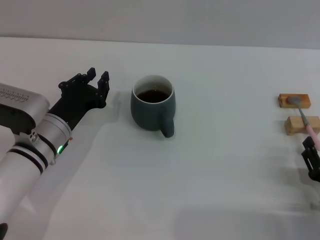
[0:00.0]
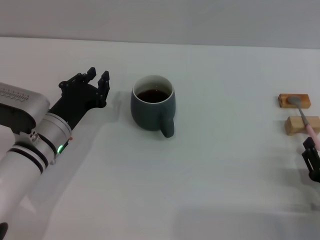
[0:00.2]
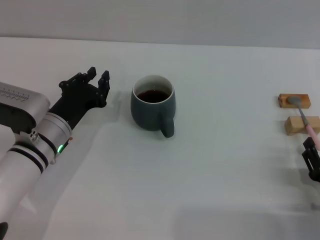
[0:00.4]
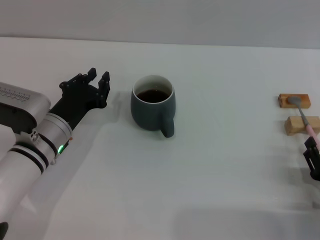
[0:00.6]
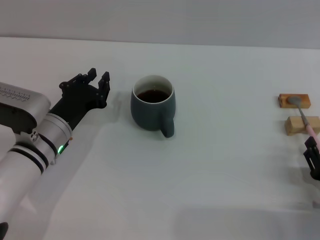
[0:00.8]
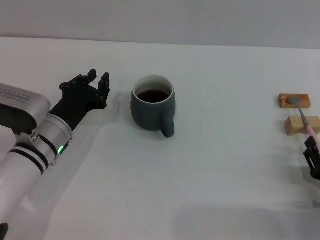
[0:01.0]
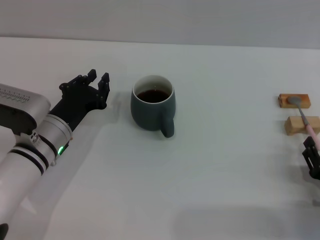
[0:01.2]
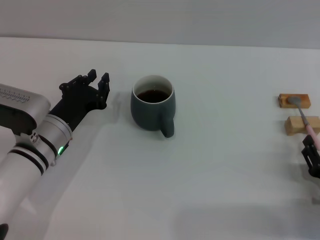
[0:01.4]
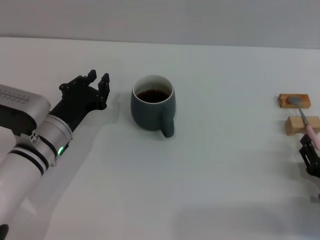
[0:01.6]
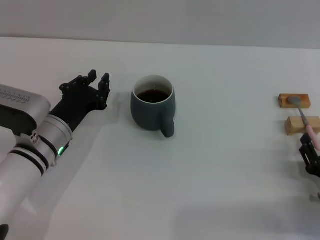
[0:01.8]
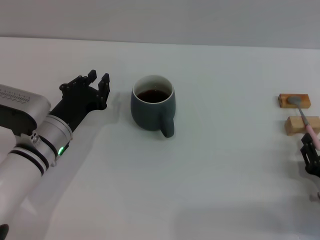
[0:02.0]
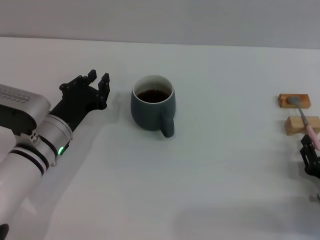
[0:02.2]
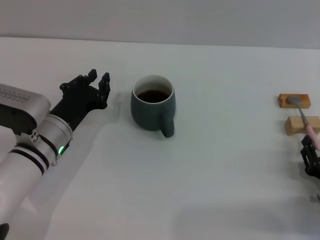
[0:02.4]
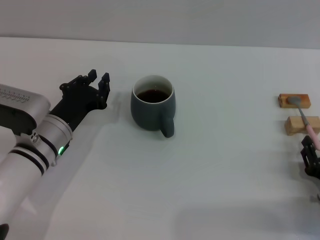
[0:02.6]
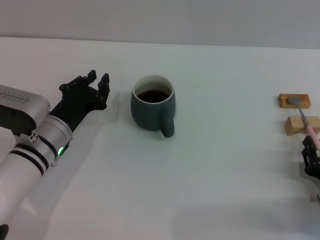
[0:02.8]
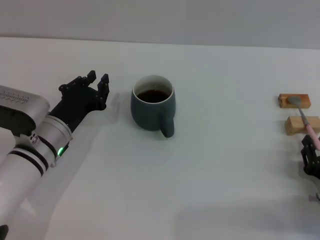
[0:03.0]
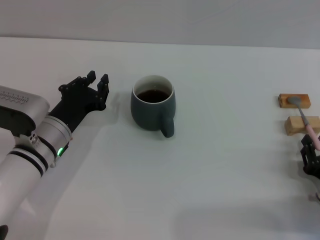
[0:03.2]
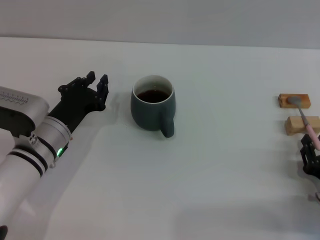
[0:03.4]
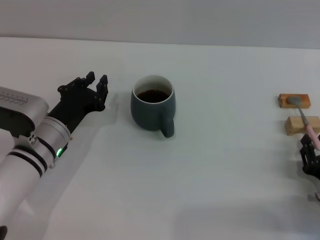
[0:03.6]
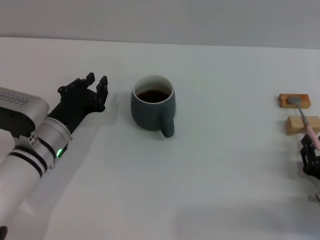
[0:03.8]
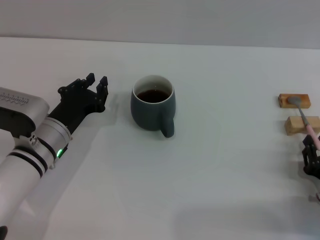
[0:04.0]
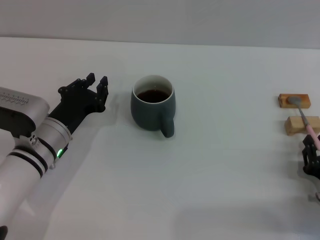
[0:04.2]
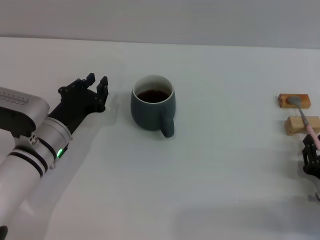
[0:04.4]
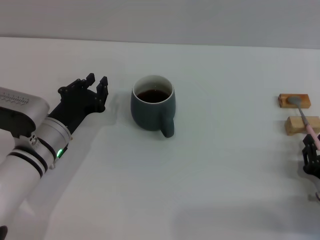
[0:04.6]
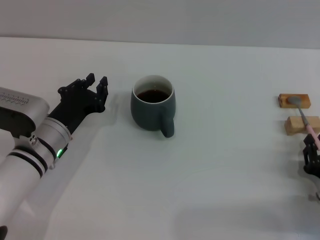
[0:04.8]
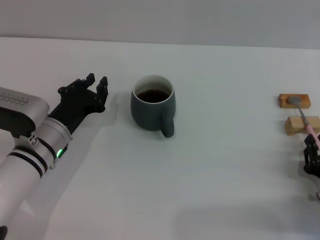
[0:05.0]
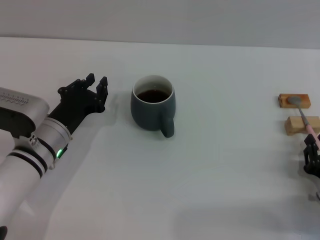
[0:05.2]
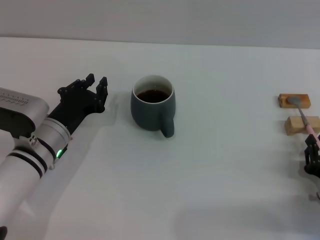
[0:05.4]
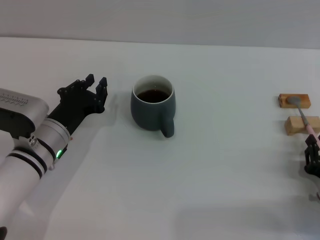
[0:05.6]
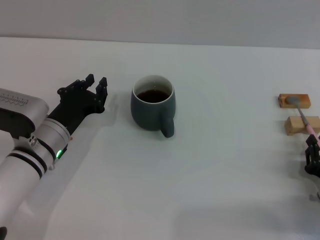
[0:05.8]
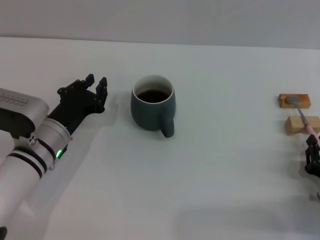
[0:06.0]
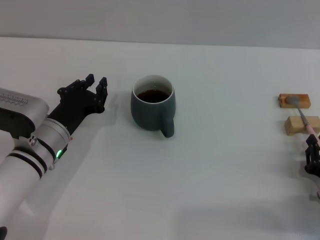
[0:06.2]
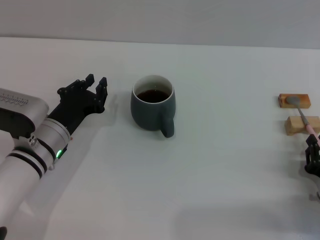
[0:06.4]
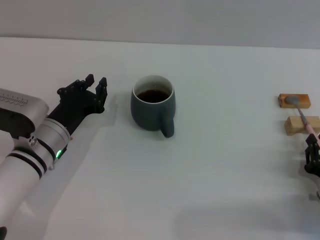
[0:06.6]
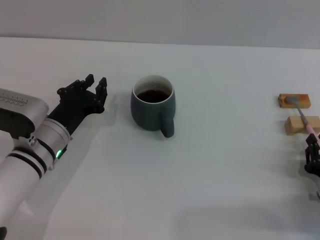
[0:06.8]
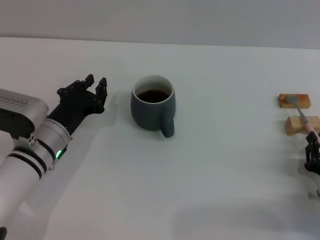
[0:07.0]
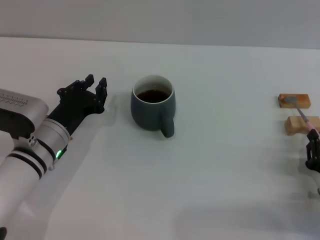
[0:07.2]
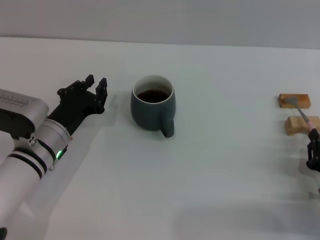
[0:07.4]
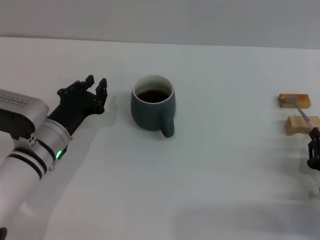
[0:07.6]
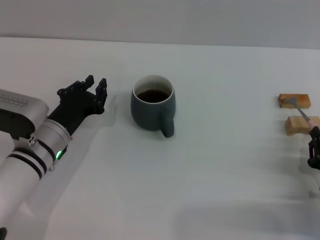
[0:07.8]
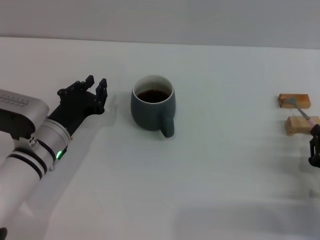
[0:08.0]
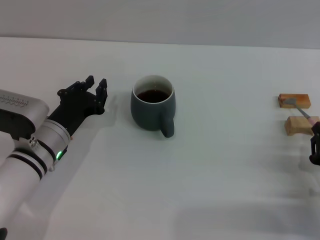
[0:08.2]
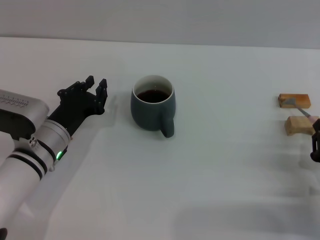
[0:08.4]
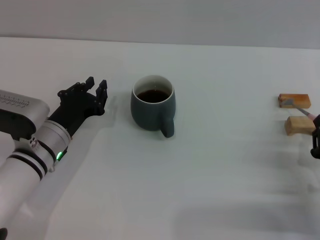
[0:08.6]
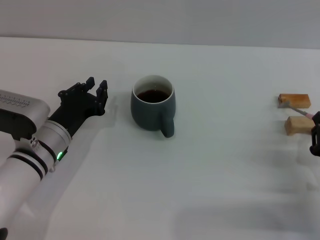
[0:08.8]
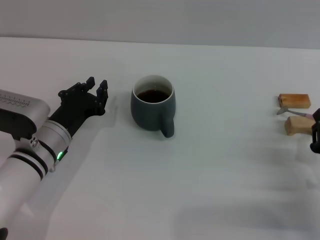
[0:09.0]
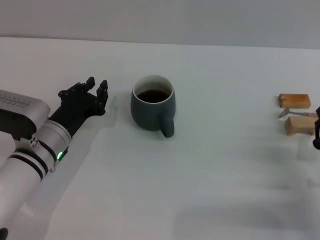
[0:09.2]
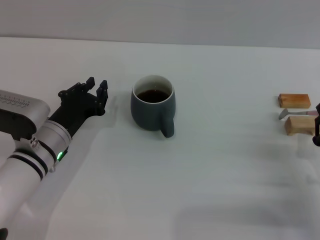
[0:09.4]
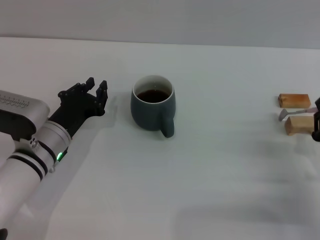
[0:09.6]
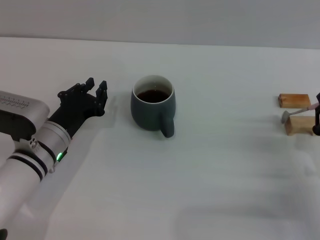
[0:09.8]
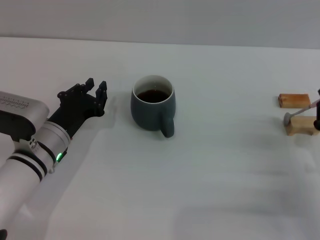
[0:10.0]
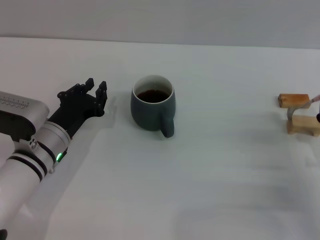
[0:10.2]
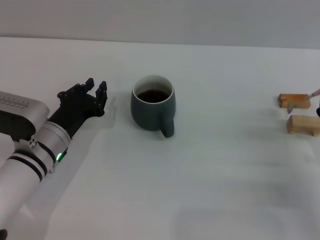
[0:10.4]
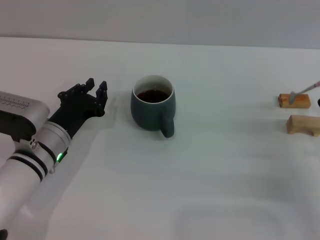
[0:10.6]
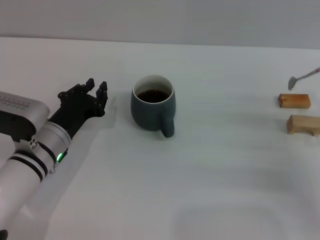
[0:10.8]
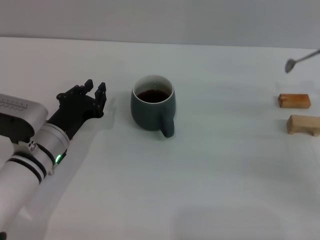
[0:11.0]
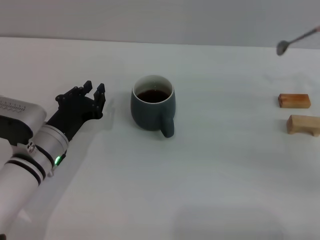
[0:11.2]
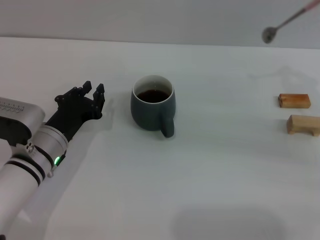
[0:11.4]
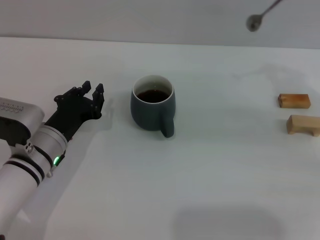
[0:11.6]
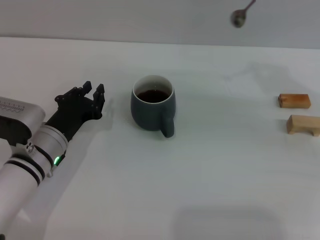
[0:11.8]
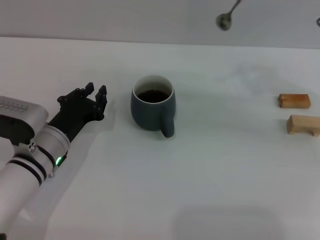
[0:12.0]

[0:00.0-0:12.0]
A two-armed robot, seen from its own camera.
Task of the whole recording: Move the grey cup to the center, lift the pink spoon, stir it three times in the cup, and put the spoon into the cup.
0:00.0 to 0:01.6: The grippers move only a little.
0:03.0 to 0:07.6: Both grippers stay put.
0:07.6 to 0:09.0: The grippers stay close to where they were, moving slightly.
0:09.0 to 0:10.4: There are only small adjustments of the grippers.
0:10.4 to 0:12.0: The right gripper heads upward and forward, covering approximately 20 cm.

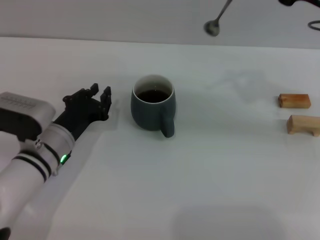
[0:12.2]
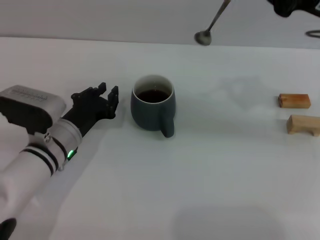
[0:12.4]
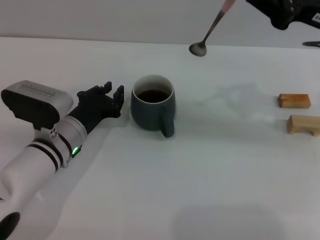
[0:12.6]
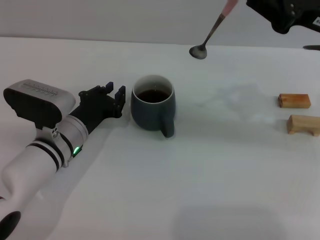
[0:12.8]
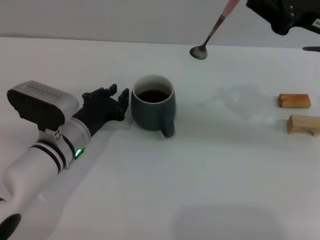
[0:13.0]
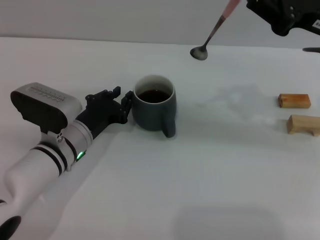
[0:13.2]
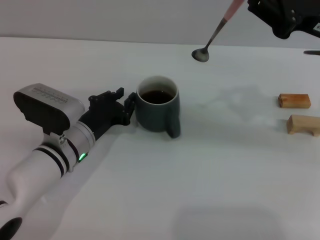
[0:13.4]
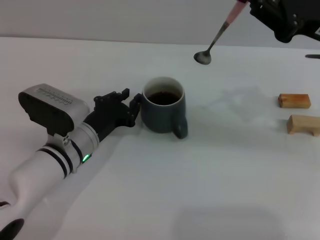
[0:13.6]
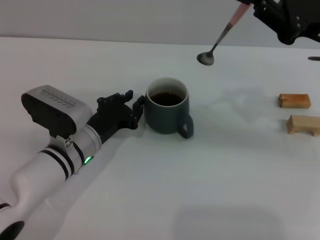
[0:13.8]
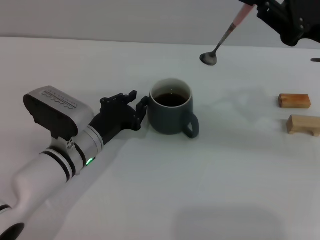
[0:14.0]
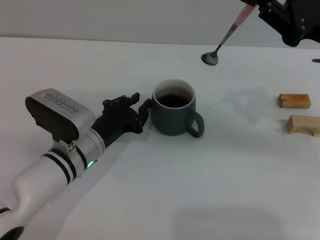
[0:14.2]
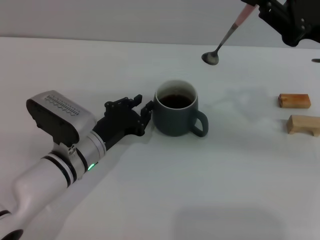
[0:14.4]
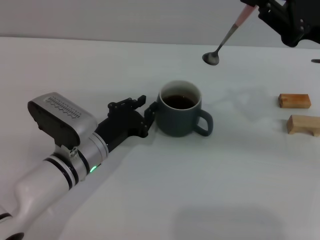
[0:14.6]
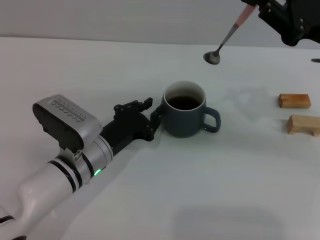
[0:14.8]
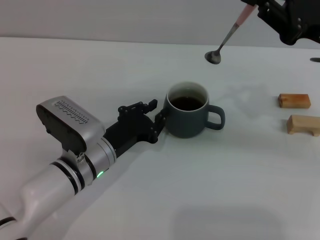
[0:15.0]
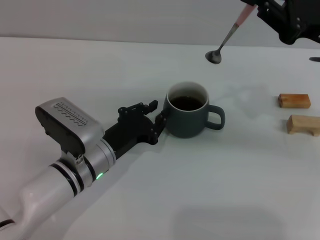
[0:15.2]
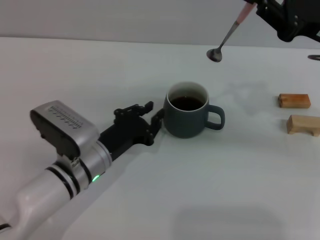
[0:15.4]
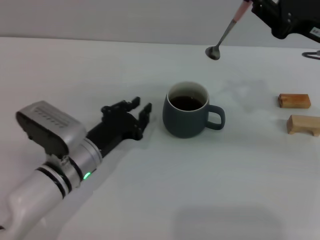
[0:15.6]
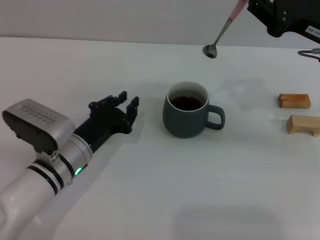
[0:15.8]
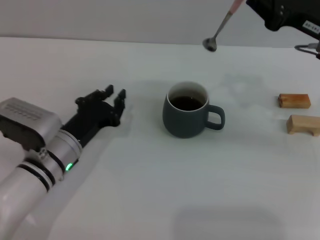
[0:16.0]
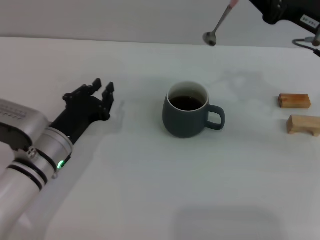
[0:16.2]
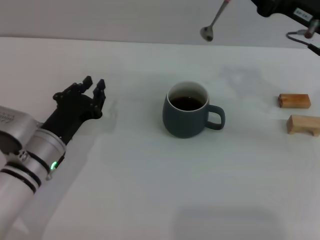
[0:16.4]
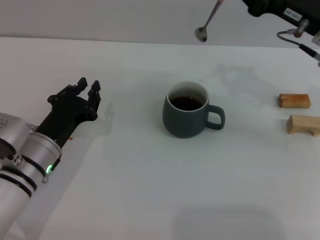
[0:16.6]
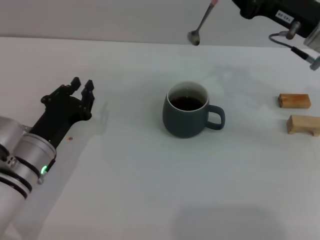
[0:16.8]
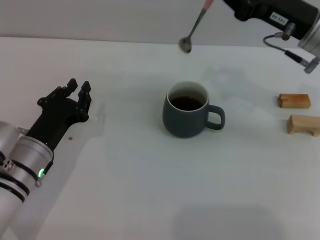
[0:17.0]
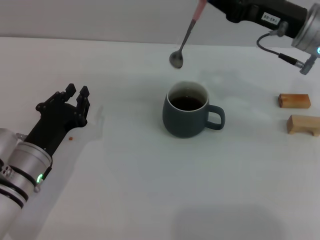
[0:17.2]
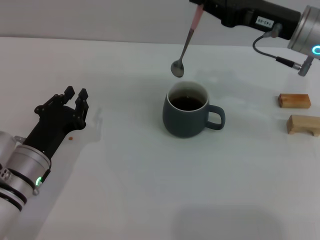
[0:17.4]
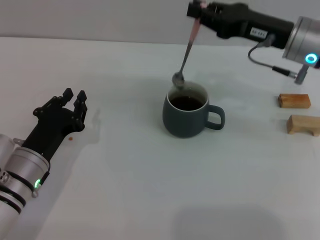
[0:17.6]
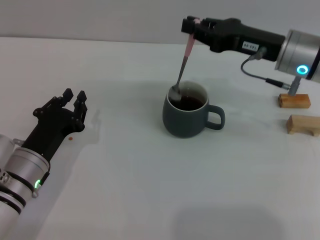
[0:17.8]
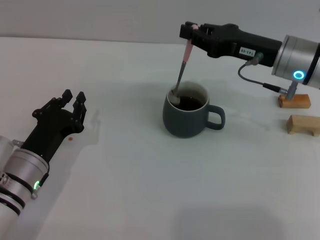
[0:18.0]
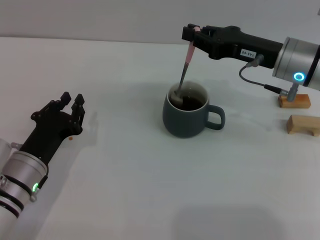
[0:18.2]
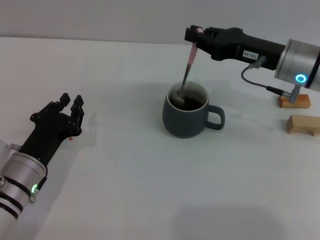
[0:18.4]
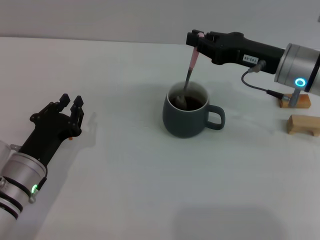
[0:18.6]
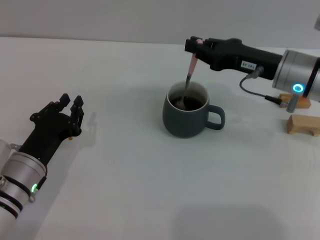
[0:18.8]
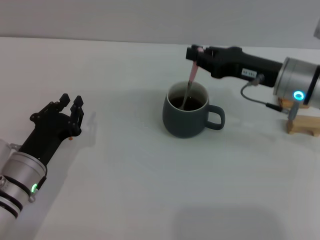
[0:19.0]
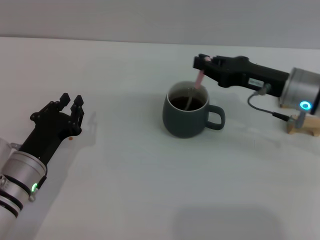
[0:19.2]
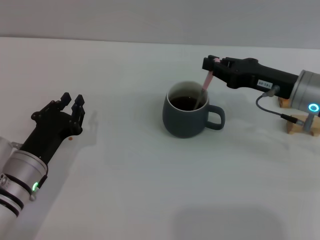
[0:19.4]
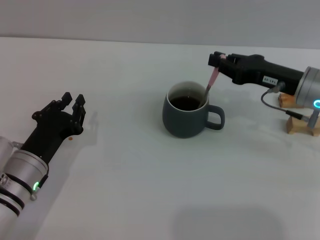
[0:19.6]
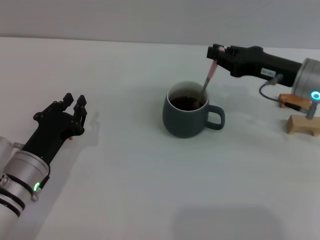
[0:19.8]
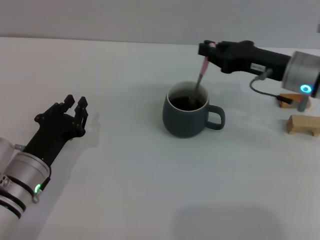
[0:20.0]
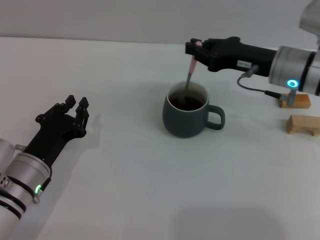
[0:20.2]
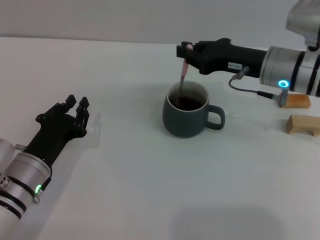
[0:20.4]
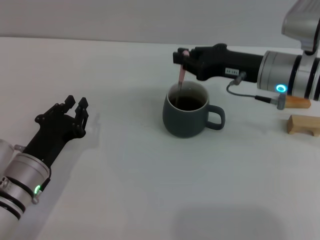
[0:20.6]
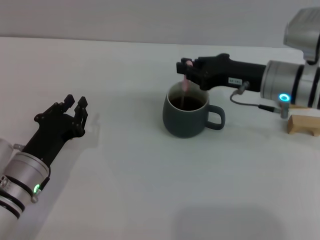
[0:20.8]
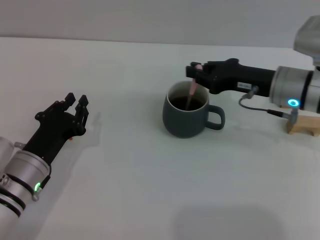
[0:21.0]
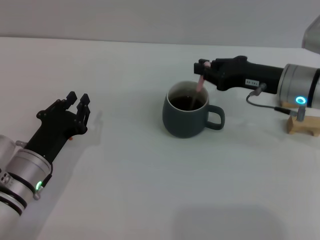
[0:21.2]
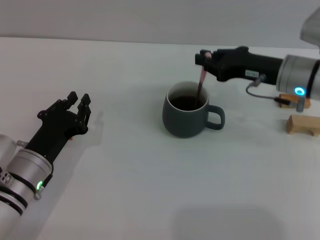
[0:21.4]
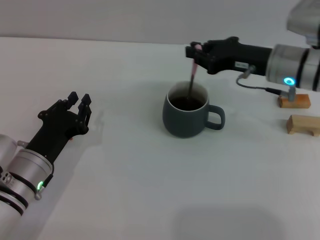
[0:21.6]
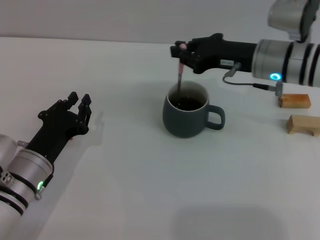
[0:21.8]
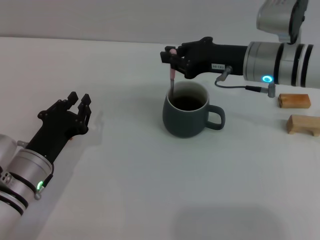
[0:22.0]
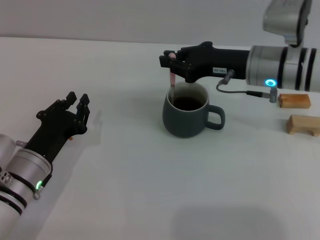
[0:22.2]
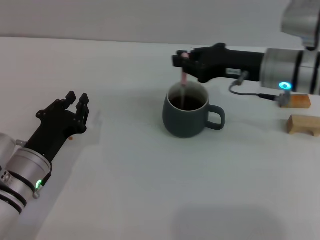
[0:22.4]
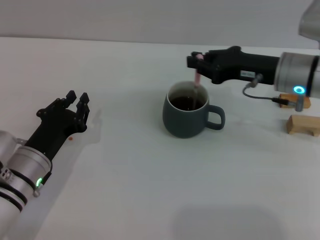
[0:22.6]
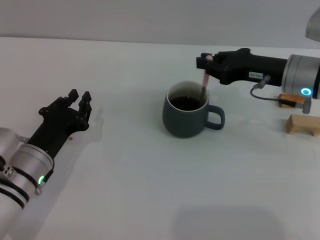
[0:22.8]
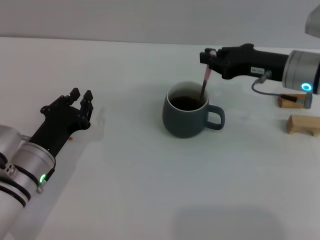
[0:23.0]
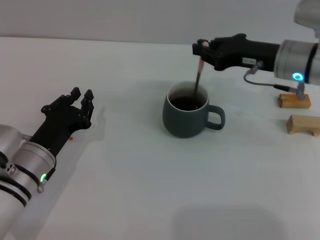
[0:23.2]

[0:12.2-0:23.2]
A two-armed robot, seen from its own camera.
Task of the whole recording: Move the grey cup to the center, lift the pink spoon, stir it three times in the cup, and put the spoon into the cup.
0:12.2 to 0:15.4: The grippers move only a little.
0:15.4 to 0:17.0: The left gripper travels to the left by about 10 cm; the right gripper moves some 5 cm.
0:18.4 to 0:23.2: There are only small adjustments of the grippers.
